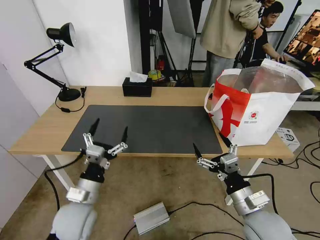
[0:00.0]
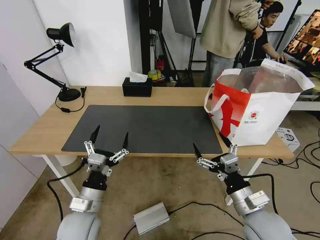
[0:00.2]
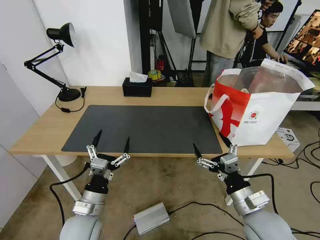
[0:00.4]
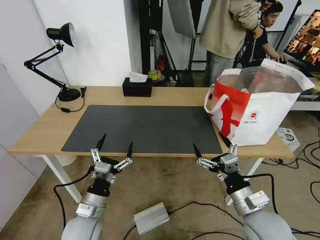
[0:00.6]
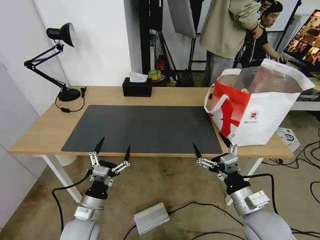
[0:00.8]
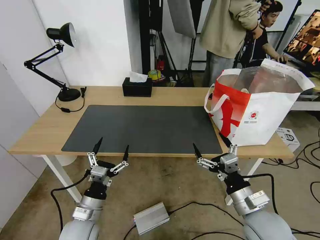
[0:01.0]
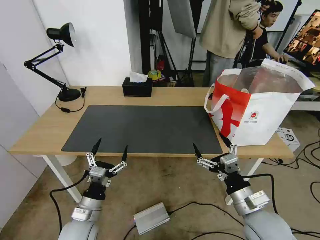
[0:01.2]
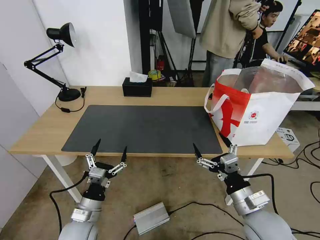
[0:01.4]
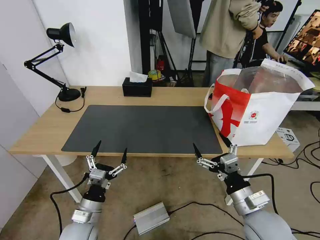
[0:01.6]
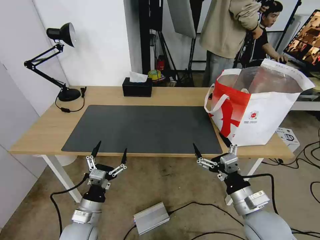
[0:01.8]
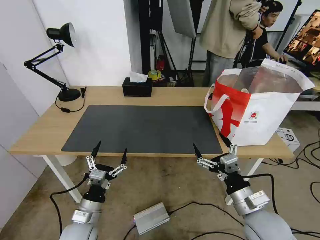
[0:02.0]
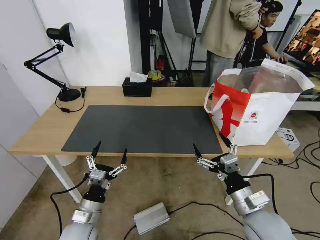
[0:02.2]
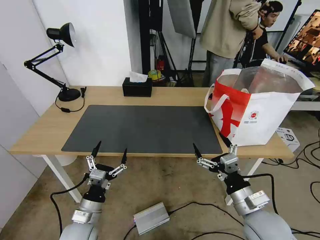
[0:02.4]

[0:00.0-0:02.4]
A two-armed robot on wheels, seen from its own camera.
Task of the whole recording: Pick up the trash from the table and place it into the takeout bag.
0:00.0 to 0:01.2: The left gripper moves downward, roughly 5 cm.
0:01.2 to 0:02.4: Neither gripper changes place.
